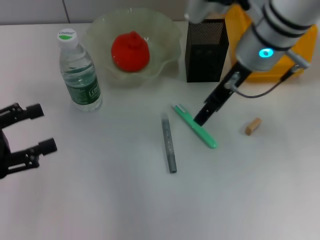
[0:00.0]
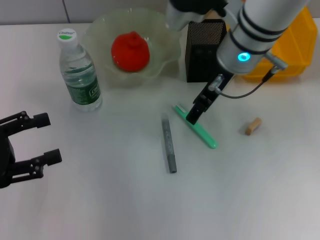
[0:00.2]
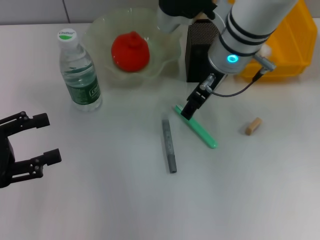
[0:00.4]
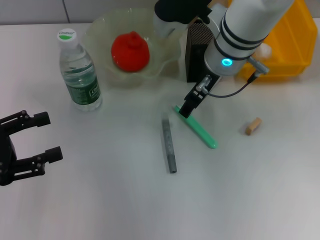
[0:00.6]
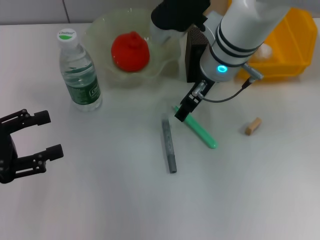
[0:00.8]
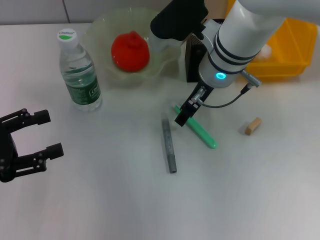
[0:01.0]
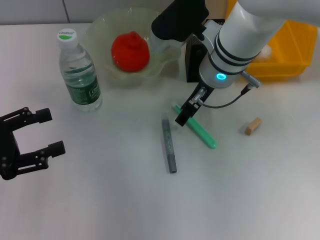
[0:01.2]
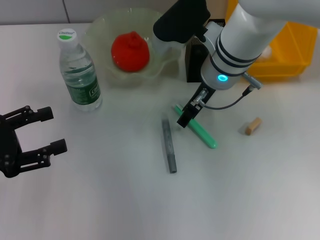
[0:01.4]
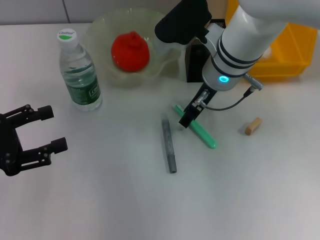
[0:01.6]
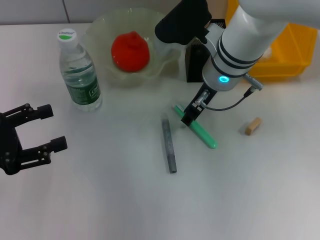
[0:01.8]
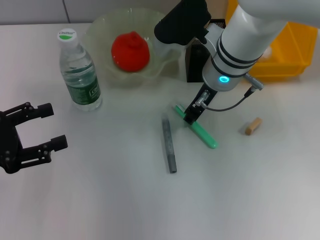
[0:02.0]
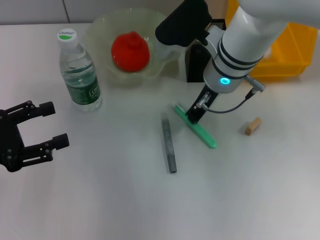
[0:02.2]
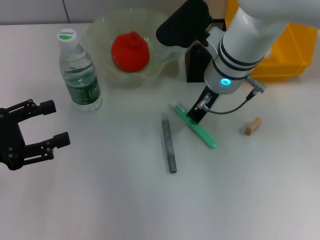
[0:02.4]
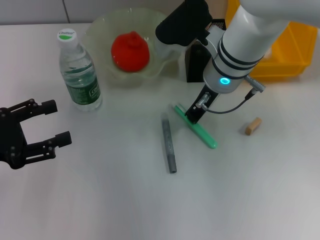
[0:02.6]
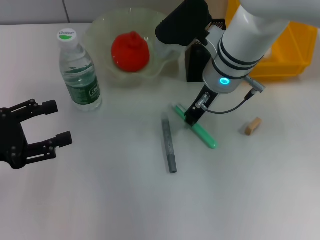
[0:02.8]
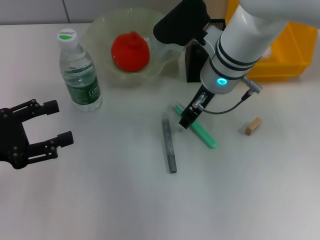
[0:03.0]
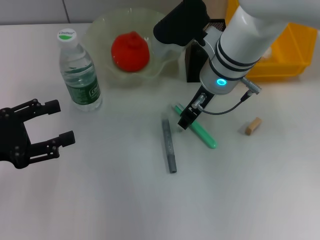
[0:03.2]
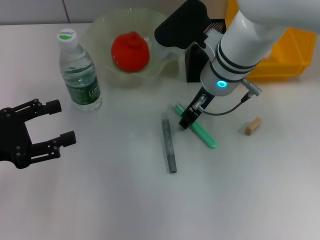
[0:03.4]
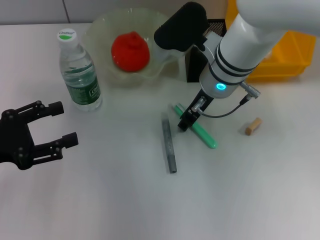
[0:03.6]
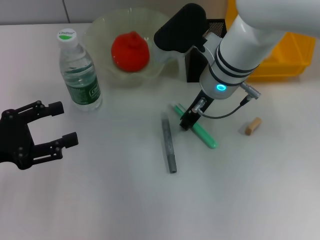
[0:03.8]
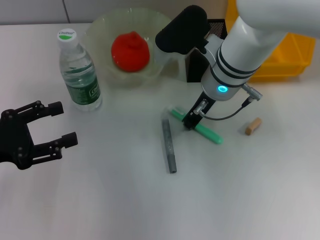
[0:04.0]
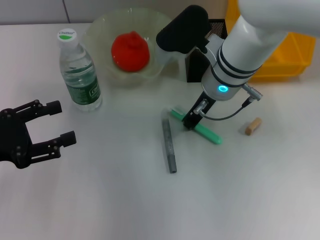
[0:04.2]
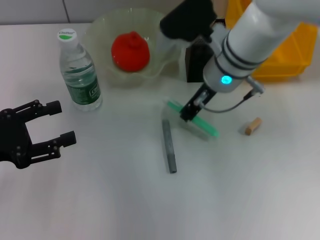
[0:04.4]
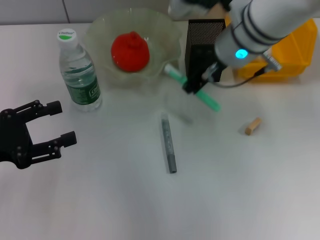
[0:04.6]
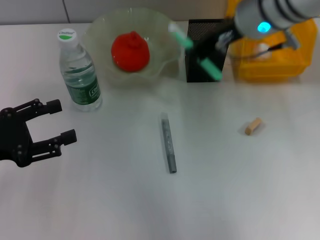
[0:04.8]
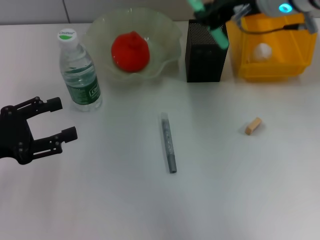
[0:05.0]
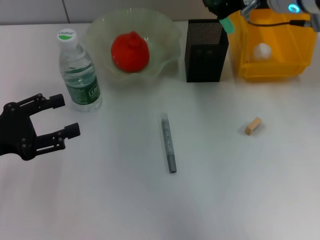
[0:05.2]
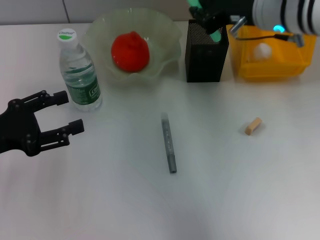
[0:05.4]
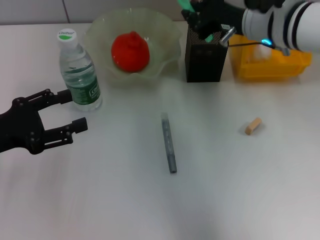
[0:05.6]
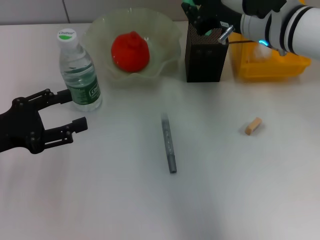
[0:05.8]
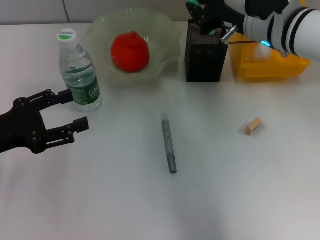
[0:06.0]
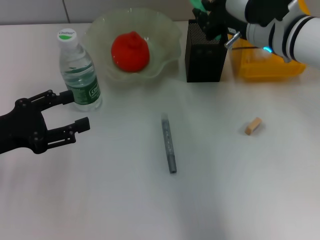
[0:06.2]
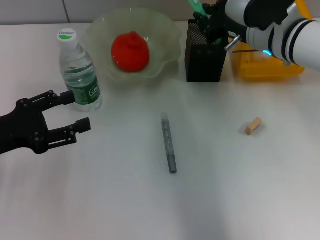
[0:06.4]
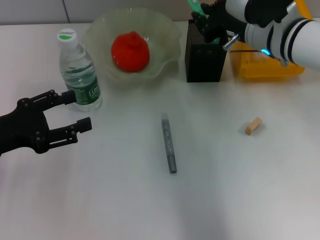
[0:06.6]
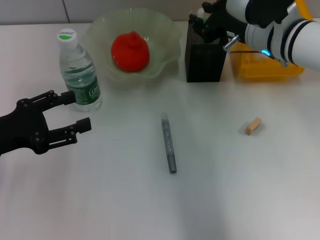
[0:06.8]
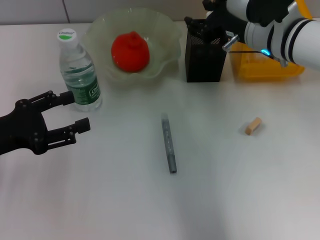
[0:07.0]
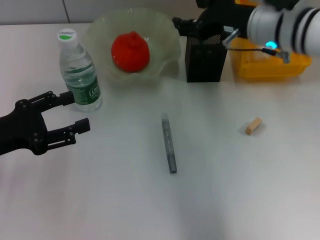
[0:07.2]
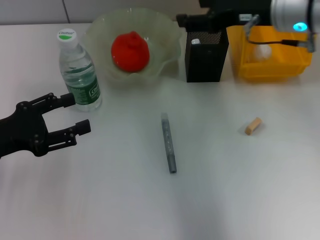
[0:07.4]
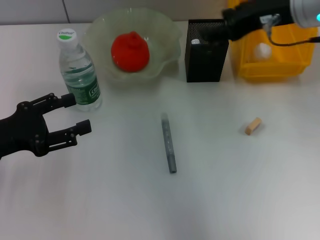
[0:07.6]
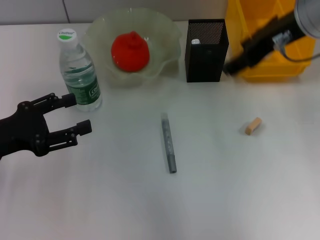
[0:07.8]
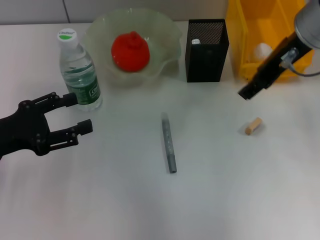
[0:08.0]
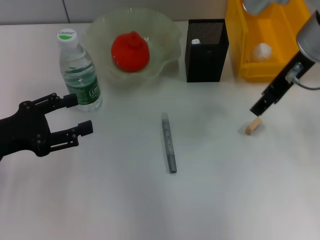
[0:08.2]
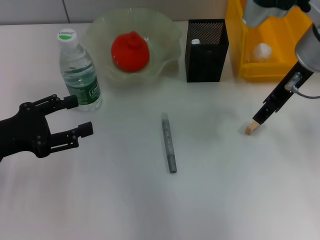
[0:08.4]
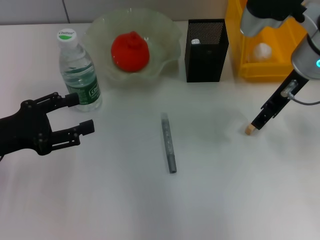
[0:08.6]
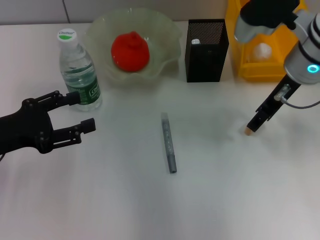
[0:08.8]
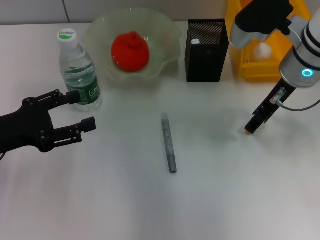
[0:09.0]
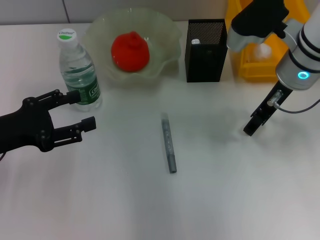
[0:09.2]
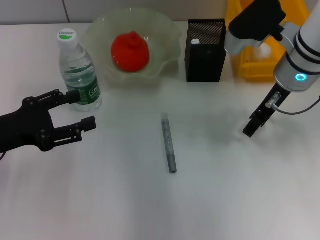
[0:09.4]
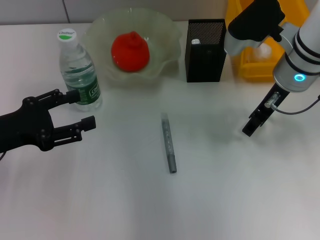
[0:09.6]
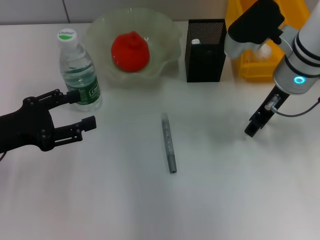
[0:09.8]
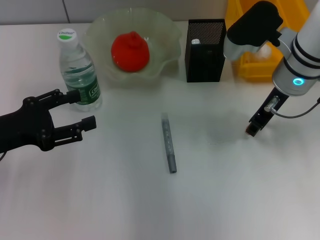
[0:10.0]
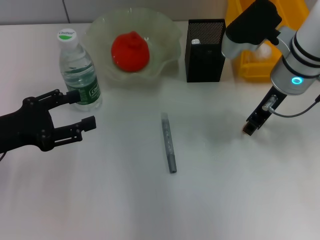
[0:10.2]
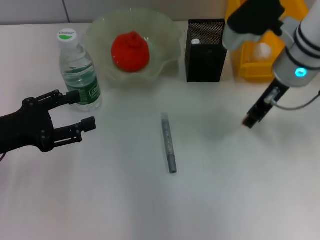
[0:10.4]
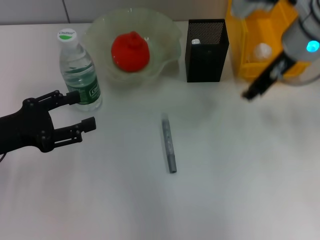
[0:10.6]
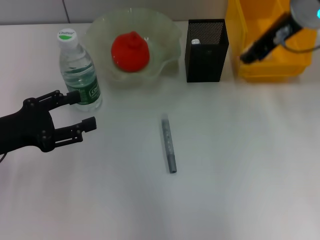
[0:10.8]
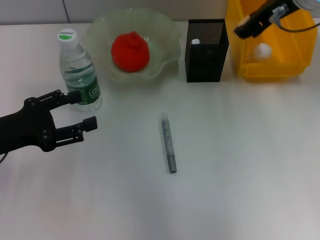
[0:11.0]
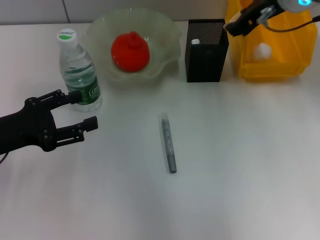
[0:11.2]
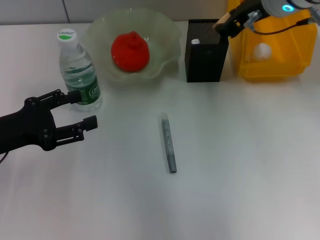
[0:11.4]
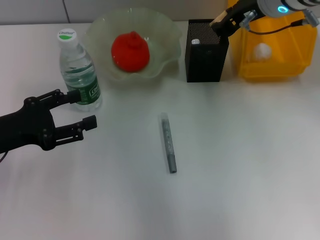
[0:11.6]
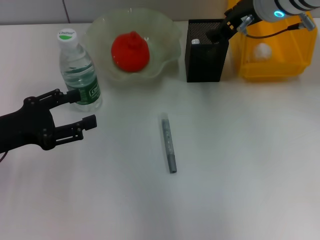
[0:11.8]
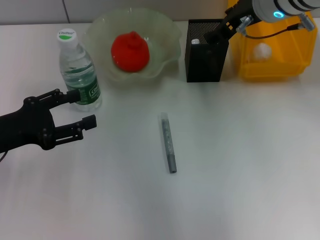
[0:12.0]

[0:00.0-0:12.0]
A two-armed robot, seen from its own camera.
Step, 0:00.0 to 0:04.0: Grab the blue utility knife with the right hand.
Step, 0:04.2 to 0:07.0: Place the blue utility knife into the pen holder with the right hand.
Step, 0:07.2 to 0:09.8: Grab the eraser with the right hand.
0:00.0 to 0:01.6: The right gripper moves downward, roughly 5 cm.
0:01.6 to 0:03.0: The right gripper closes up.
0:03.0 to 0:04.4: Both grippers stay put.
0:04.4 to 0:06.0: The right gripper heads to the right, covering some 5 cm, and reaches some 10 cm upward, then returns.
0:06.0 to 0:07.6: The right gripper goes about 10 cm upward, and opens its fingers.
0:07.6 to 0:09.0: The right gripper travels downward by some 5 cm.
0:09.0 to 0:10.4: The right gripper closes.
0:10.4 to 0:12.0: The right gripper changes place by approximately 5 cm.

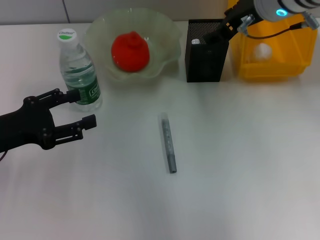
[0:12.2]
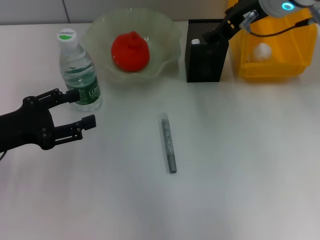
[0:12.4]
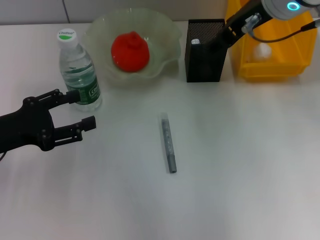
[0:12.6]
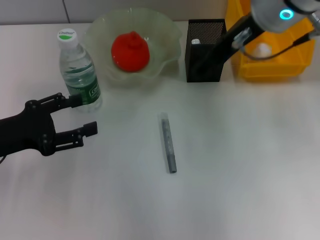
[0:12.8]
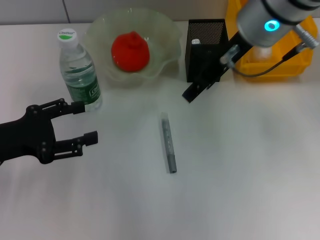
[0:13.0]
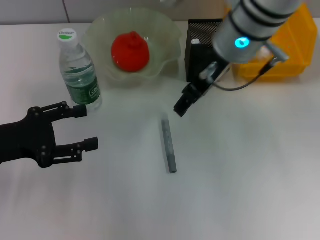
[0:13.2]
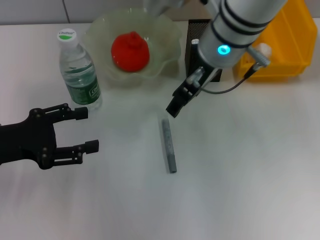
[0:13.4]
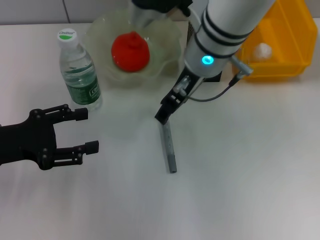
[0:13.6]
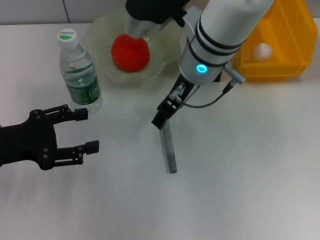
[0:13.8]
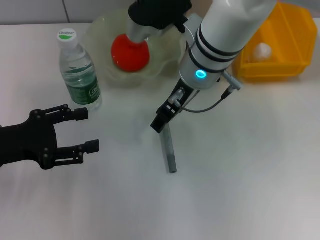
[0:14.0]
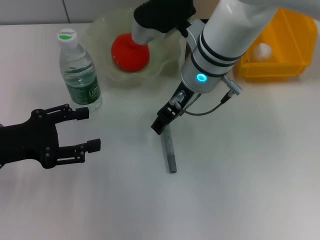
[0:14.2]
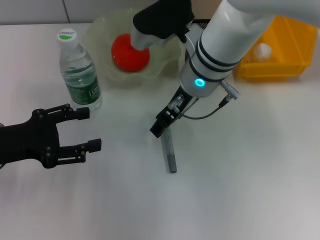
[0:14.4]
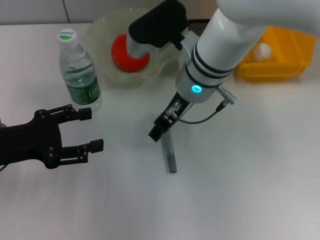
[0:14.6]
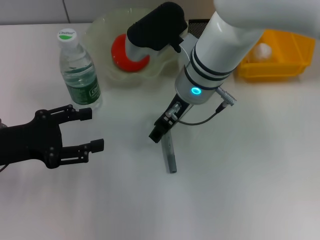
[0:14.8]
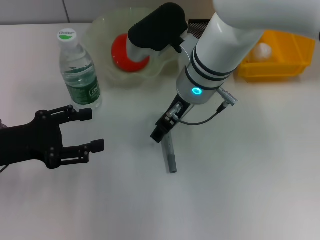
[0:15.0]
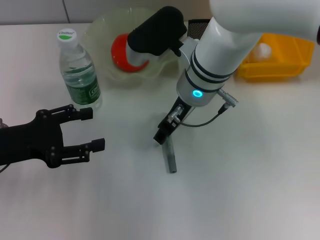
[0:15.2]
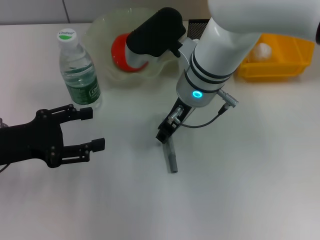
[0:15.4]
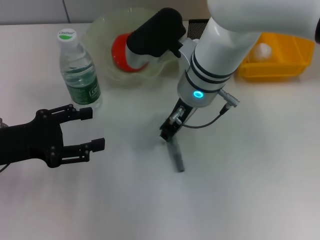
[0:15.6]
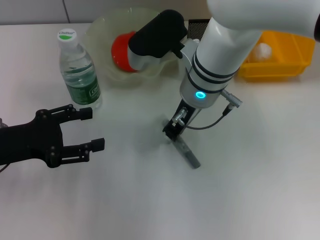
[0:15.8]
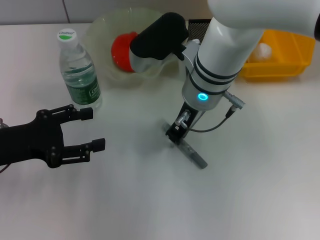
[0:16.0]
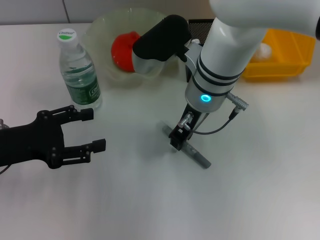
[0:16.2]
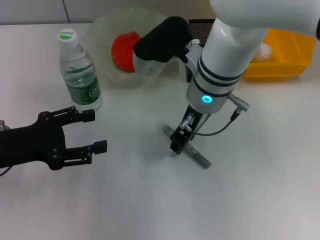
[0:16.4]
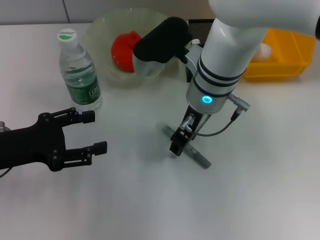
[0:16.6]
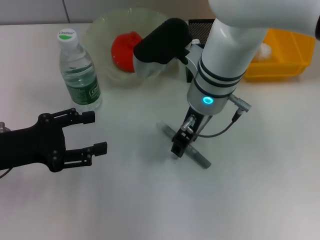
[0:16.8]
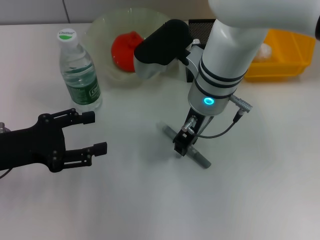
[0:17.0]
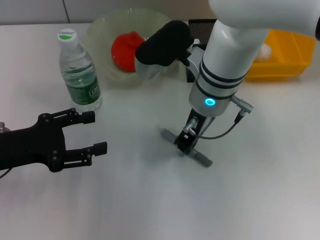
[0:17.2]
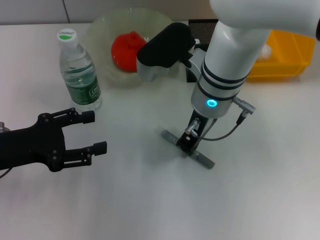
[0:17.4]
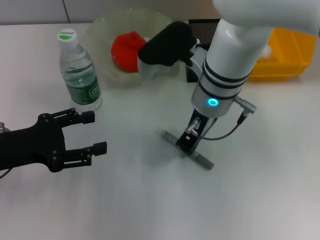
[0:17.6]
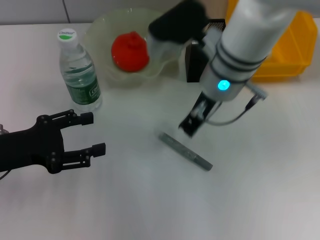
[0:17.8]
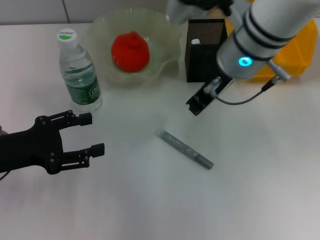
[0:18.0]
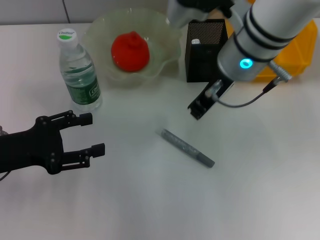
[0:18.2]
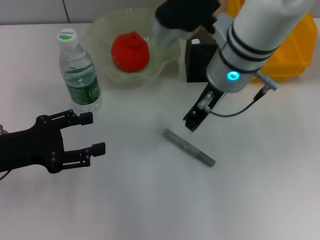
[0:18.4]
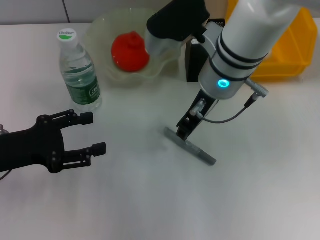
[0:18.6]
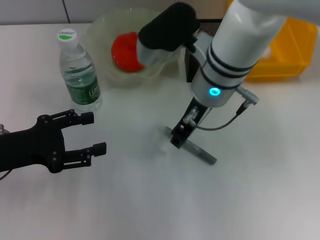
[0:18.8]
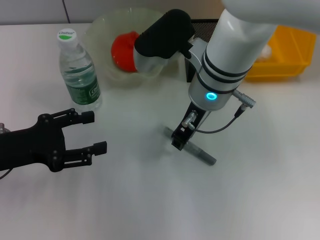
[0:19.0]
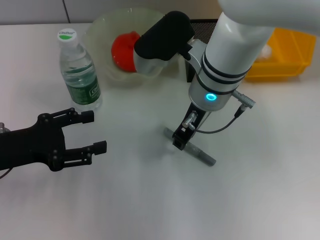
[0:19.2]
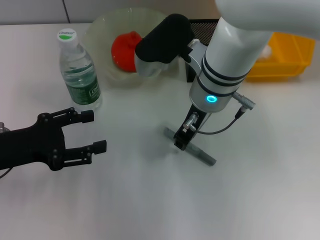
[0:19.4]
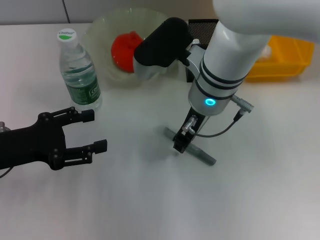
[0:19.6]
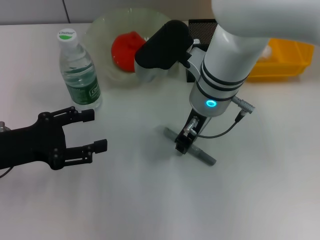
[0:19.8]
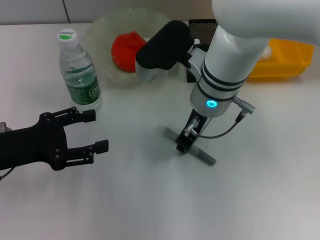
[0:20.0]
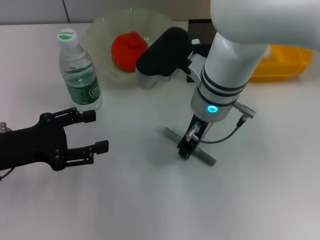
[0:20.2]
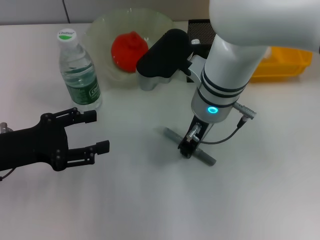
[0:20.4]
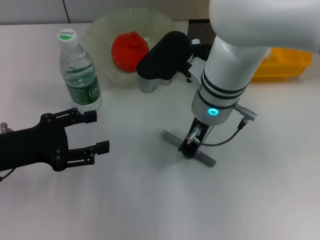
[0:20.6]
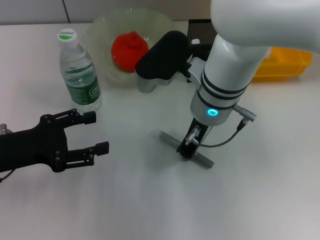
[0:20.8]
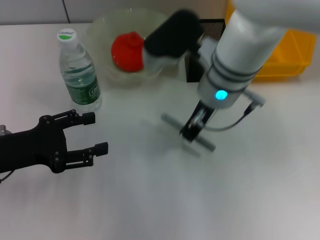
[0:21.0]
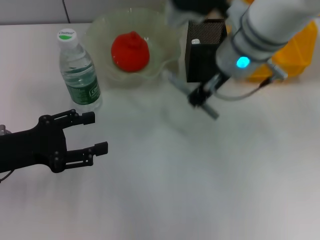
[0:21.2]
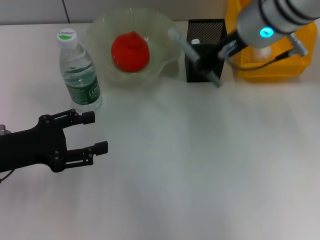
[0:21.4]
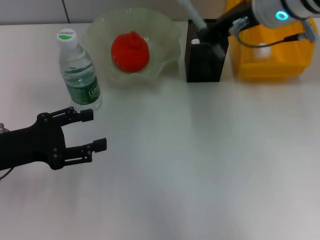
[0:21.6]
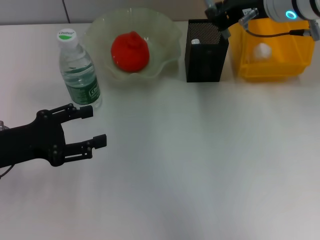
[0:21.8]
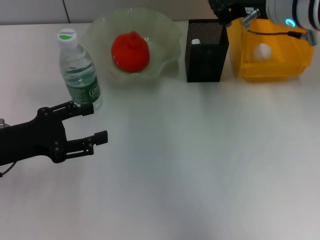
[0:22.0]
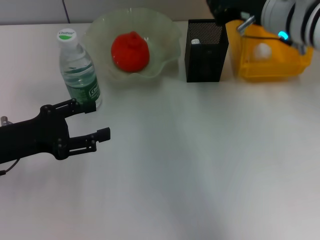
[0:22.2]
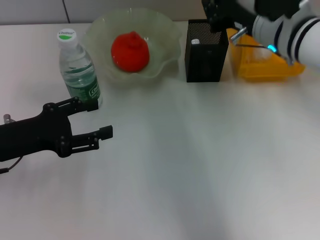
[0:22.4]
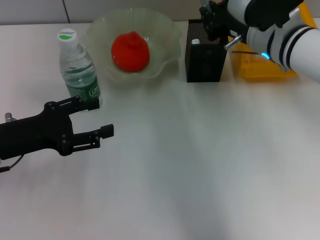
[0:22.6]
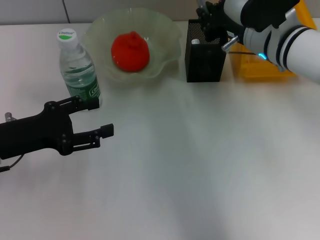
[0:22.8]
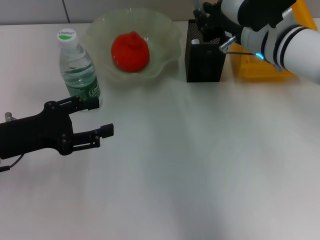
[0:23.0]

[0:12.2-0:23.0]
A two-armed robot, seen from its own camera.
Step, 0:12.8 to 0:20.4: Grab the gray glue with the right hand.
0:12.2 to 0:13.8: The right gripper travels to the left by some 10 cm.
0:13.8 to 0:15.2: The grippers move only a little.
0:15.2 to 0:16.8: The right gripper closes and opens again.
0:16.8 to 0:18.4: The right gripper changes place by roughly 5 cm, and closes up.
0:18.4 to 0:20.0: The right gripper ends up roughly 5 cm from where it was, and opens.
0:20.0 to 0:21.4: The right gripper heads upward and to the right, covering about 10 cm.
0:21.4 to 0:23.0: The right gripper shifts roughly 10 cm downward.
